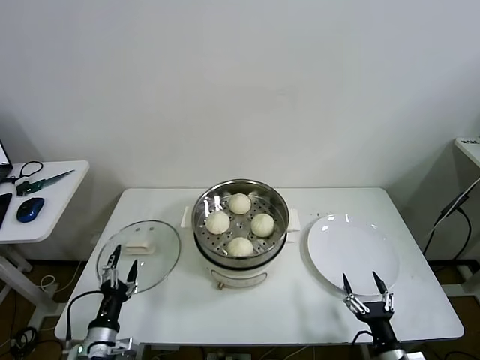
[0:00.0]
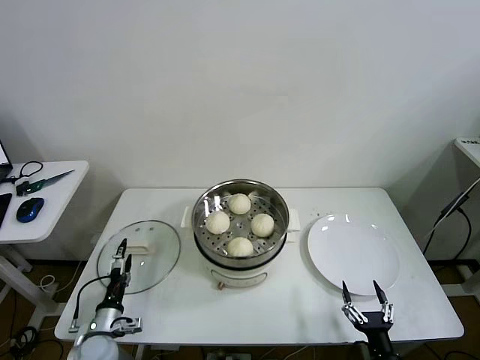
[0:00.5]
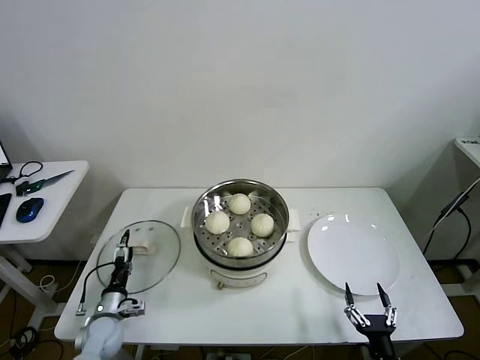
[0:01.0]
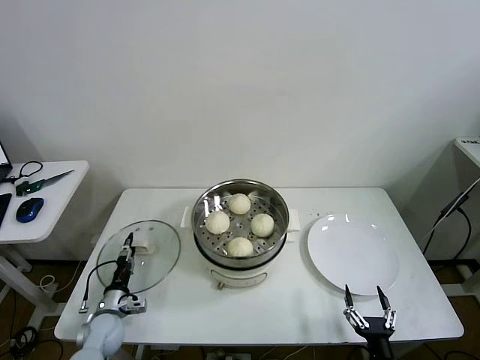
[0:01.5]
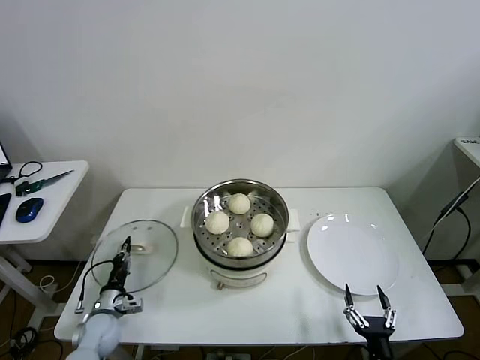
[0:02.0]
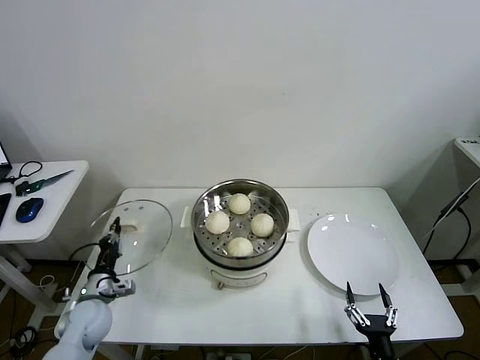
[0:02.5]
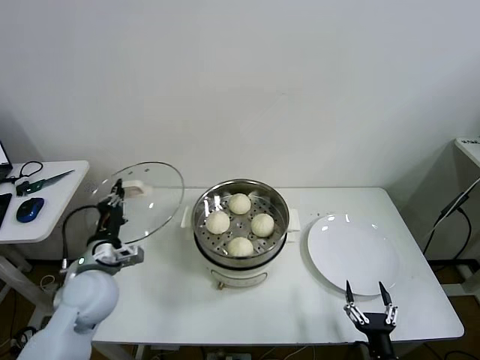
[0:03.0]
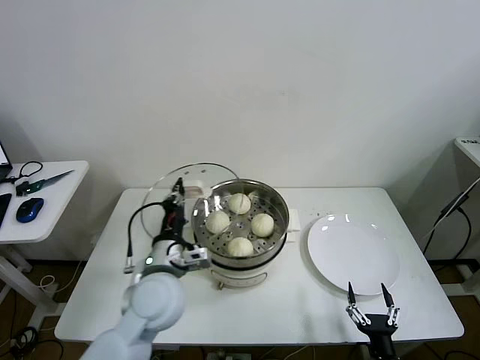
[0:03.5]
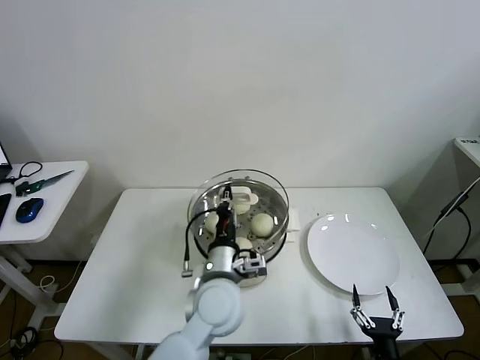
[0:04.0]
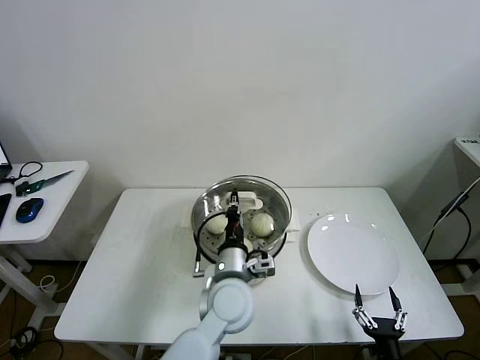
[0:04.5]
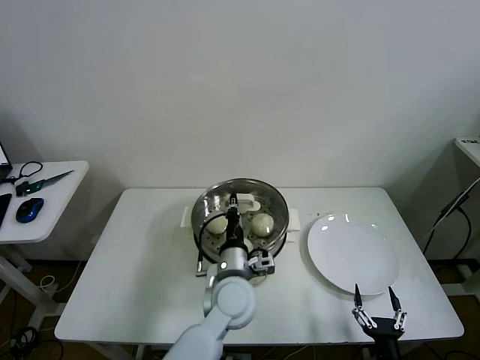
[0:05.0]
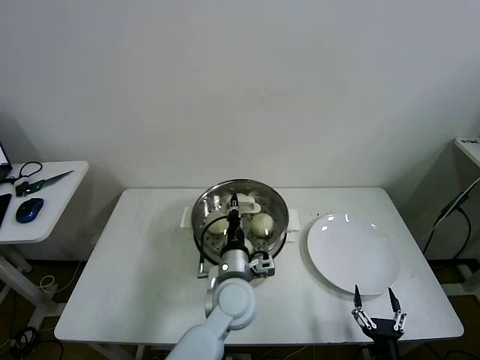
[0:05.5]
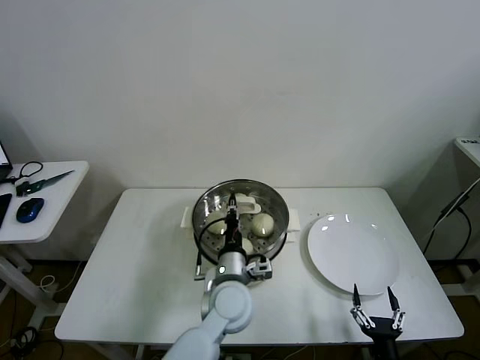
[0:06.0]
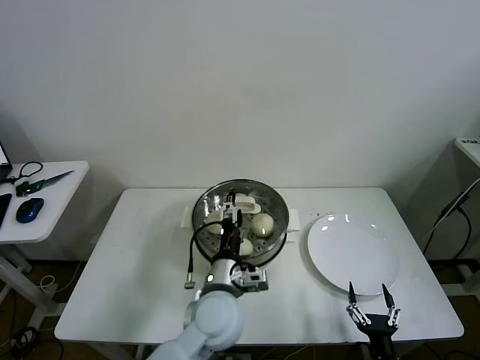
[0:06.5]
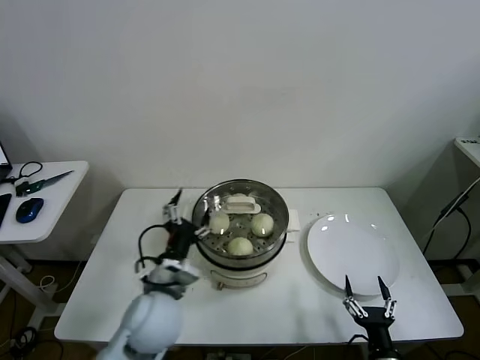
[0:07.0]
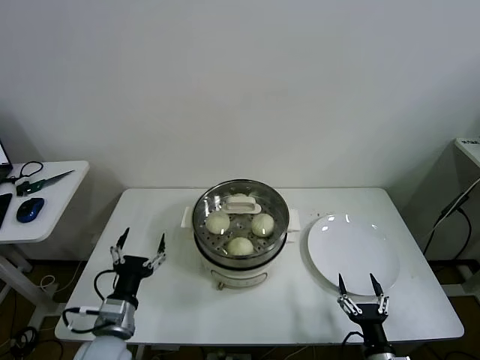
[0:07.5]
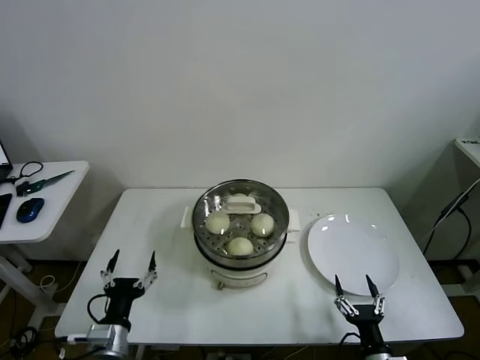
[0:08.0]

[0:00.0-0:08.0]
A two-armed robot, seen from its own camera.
Task of the whole recording: take steamed baozi put them in steamer then cover it.
Step, 0:02.5 to 0:06.5: Place the pot lid on the steamer with left gripper.
0:00.0 to 0:02.0: The right gripper changes place by roughly 5 cm; the left gripper is displaced forward and downward by approximately 15 cm, and closes.
0:02.0 to 0:04.0: The left gripper heads to the right and upward, covering about 40 cm.
0:04.0 to 0:06.0: The left gripper heads downward, covering roughly 5 cm.
0:06.0 to 0:08.0: The left gripper shifts approximately 30 cm to the left and backward, and opens its fingers.
